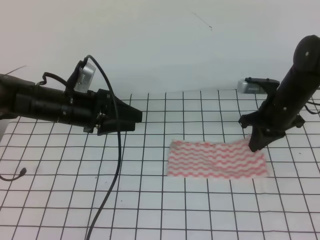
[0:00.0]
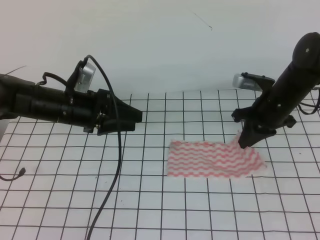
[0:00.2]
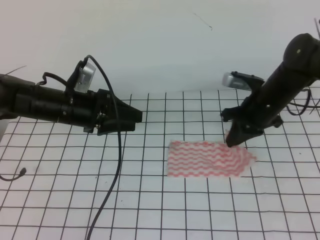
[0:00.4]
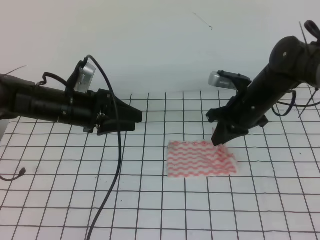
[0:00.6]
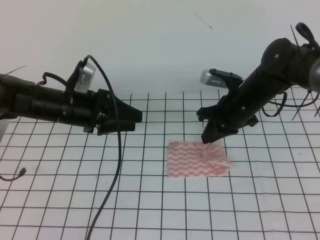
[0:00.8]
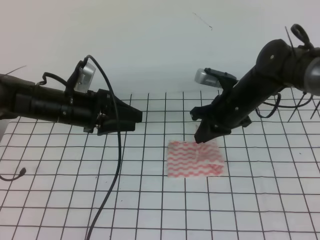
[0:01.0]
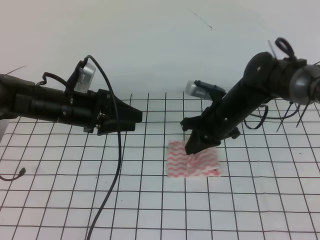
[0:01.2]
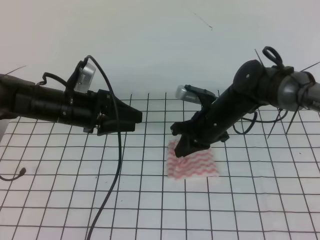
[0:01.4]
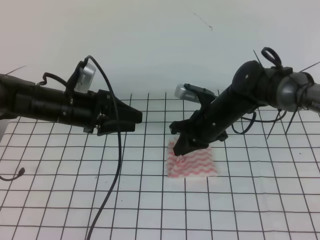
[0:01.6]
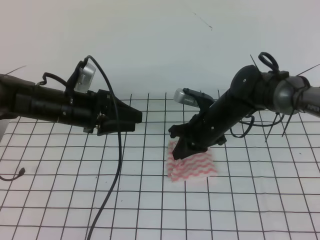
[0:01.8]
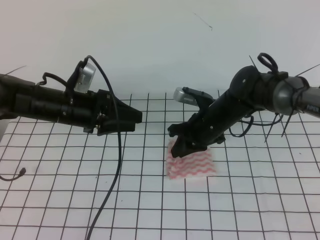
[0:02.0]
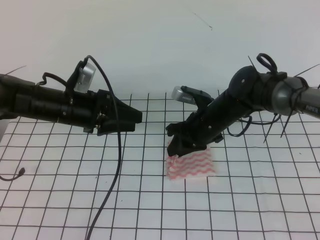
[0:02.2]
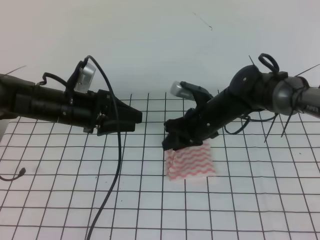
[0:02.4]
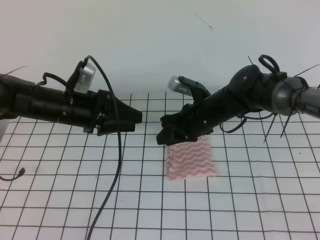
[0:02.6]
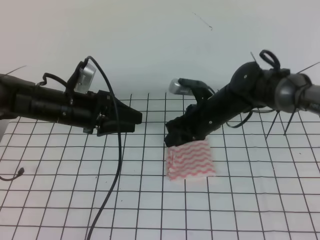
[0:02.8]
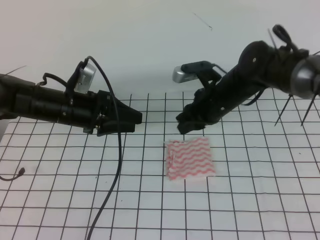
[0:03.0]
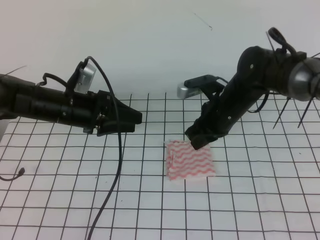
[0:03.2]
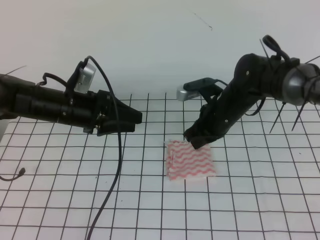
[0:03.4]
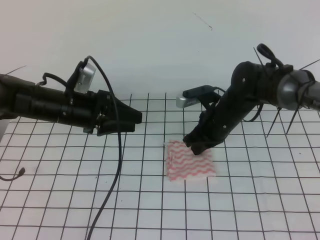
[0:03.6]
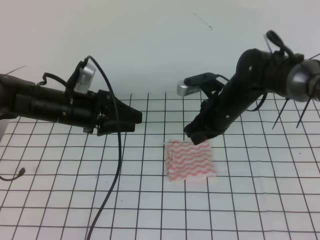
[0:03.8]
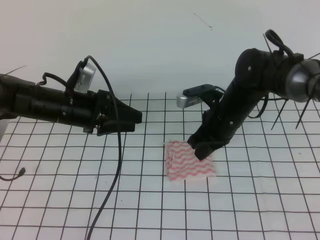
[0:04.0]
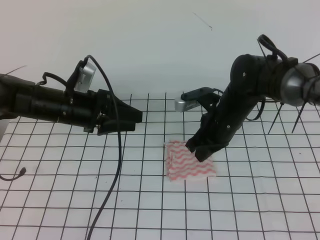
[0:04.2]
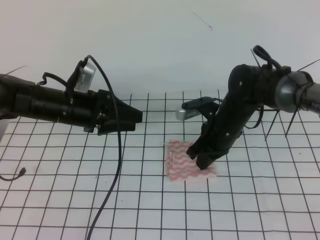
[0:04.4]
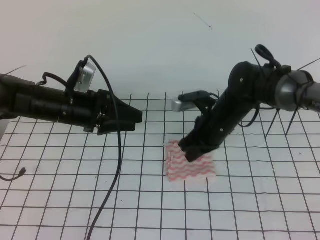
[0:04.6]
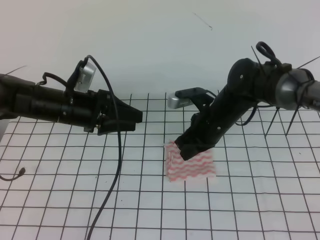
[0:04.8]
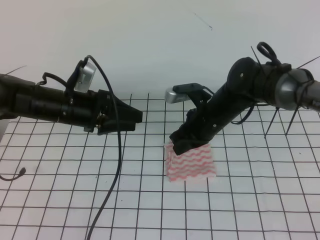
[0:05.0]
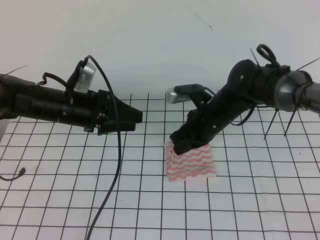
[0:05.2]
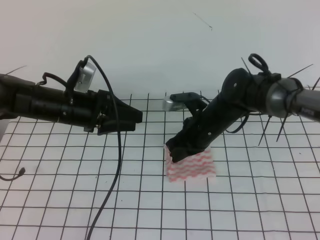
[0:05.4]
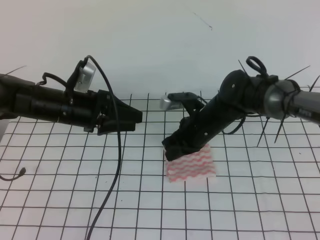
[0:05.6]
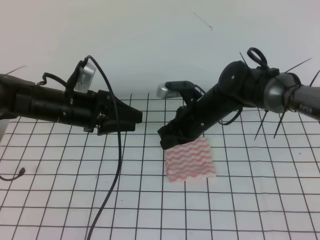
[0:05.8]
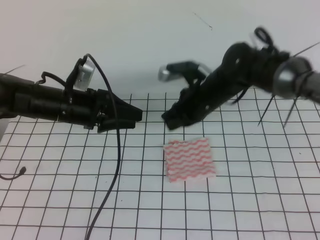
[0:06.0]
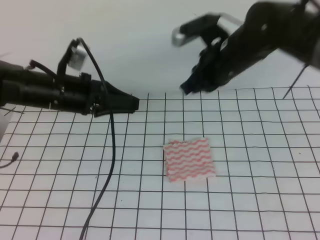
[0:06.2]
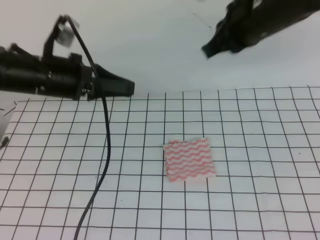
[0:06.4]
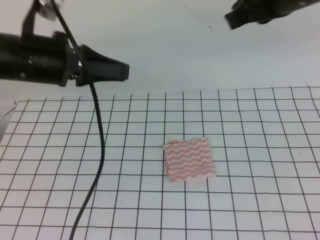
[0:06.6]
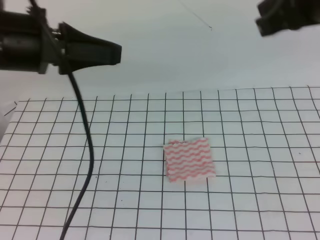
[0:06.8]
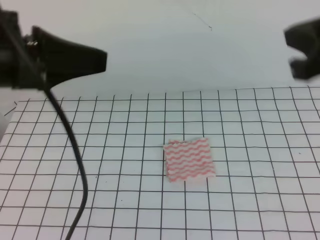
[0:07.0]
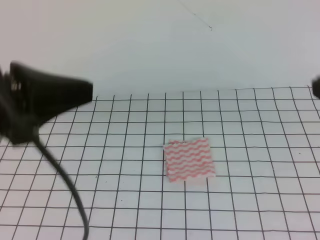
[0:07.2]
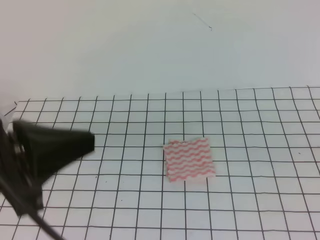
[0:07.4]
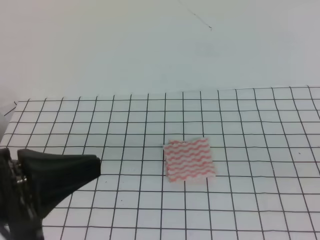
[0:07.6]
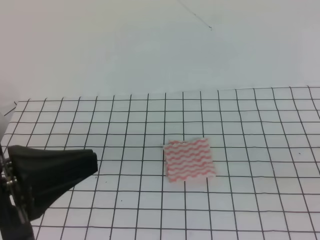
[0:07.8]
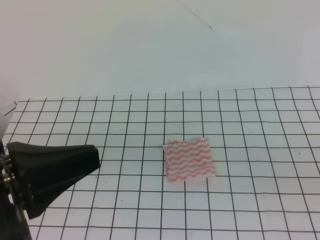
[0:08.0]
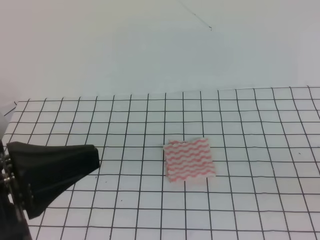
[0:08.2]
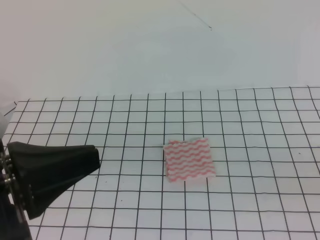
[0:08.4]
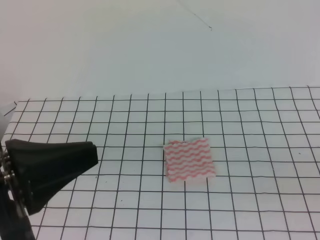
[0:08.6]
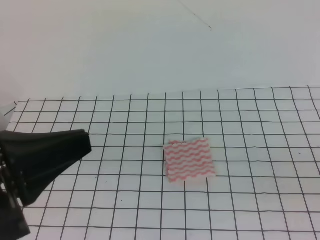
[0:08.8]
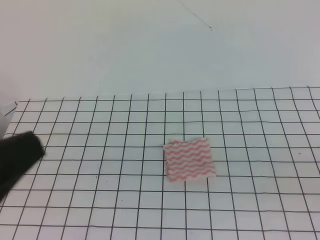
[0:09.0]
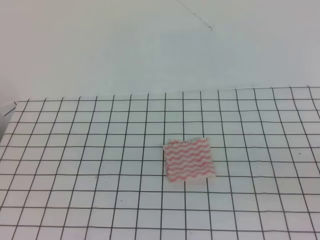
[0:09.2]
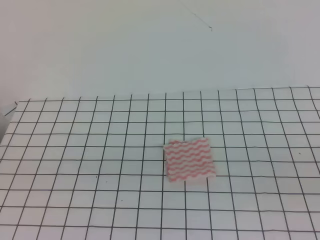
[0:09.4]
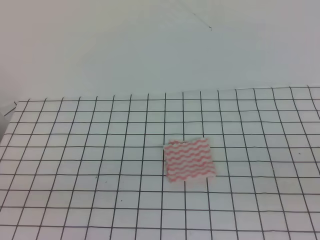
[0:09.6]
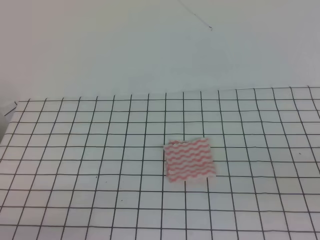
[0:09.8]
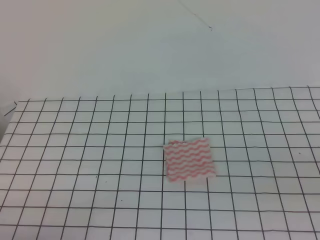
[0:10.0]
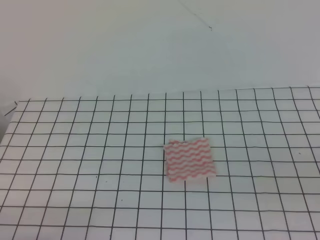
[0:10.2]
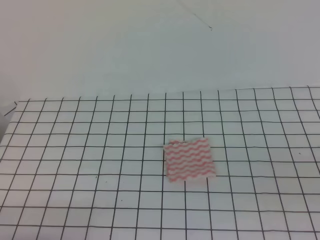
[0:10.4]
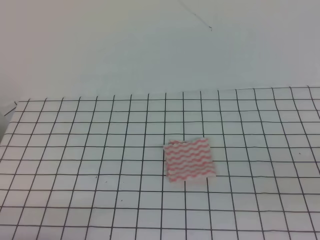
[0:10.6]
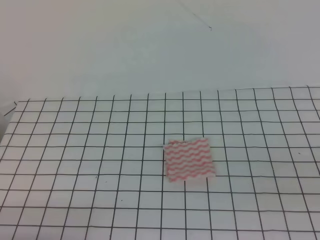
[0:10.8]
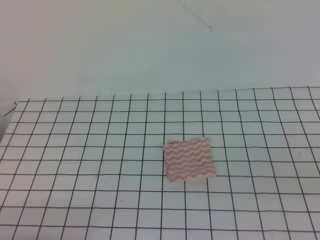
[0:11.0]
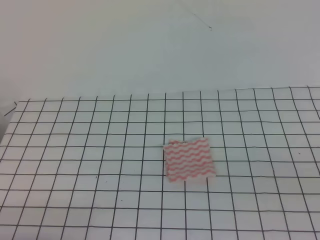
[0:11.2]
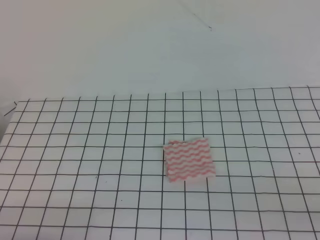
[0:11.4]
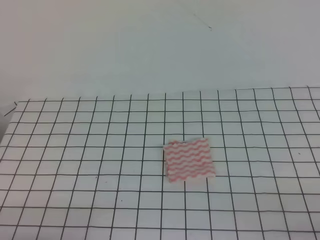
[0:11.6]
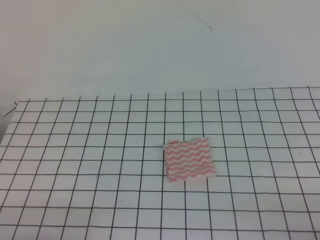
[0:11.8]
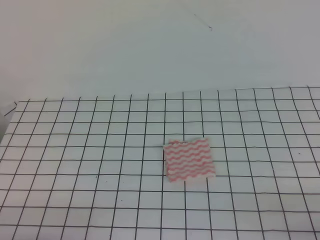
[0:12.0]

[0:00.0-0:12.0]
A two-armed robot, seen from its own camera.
0:00.0 to 0:01.6: The right gripper heads to the left, covering approximately 10 cm.
0:01.6 to 0:03.0: The right gripper opens.
0:03.0 to 0:04.4: The right gripper closes its fingers.
0:04.4 to 0:06.0: The right gripper shifts by roughly 5 cm.
0:06.0 to 0:07.6: The right gripper goes approximately 35 cm backward and to the right, while the left gripper travels backward and upward by roughly 30 cm, and closes up.
0:07.6 to 0:09.0: The left gripper heads backward, covering about 5 cm.
0:09.0 to 0:10.4: The left gripper goes about 20 cm downward.

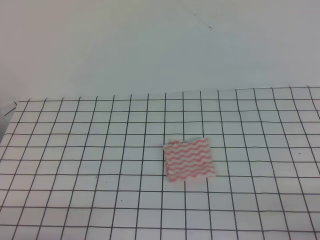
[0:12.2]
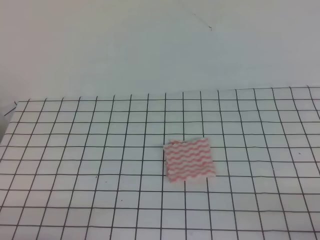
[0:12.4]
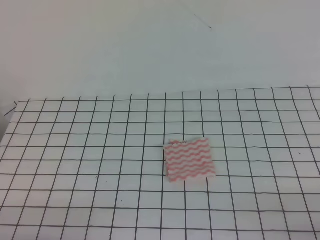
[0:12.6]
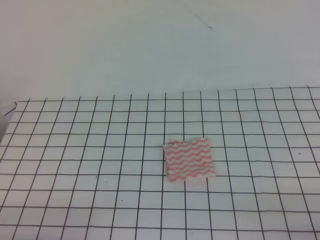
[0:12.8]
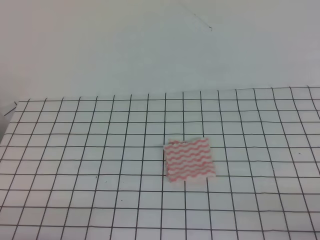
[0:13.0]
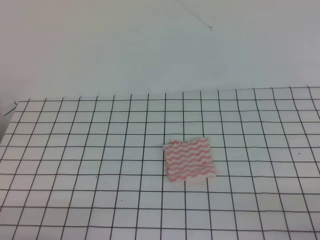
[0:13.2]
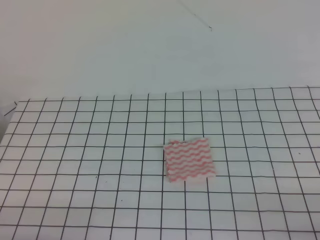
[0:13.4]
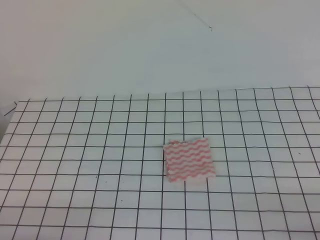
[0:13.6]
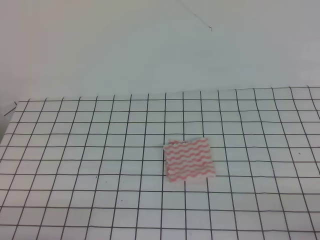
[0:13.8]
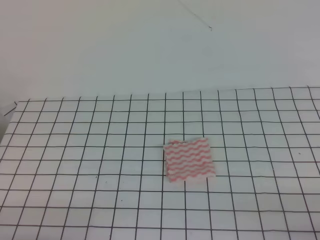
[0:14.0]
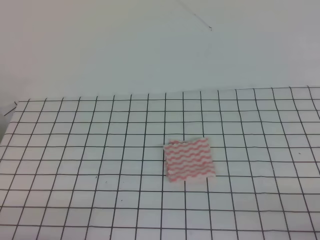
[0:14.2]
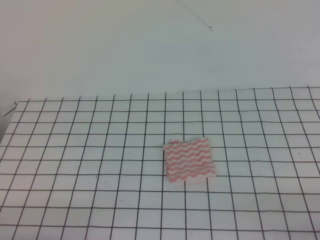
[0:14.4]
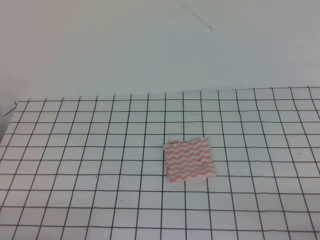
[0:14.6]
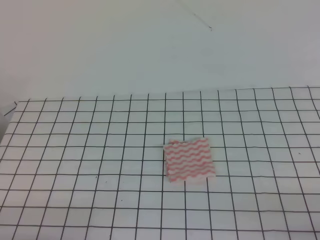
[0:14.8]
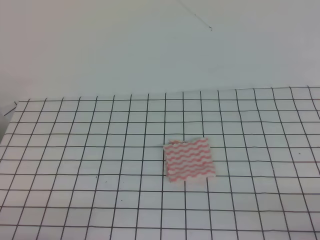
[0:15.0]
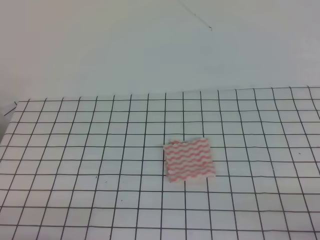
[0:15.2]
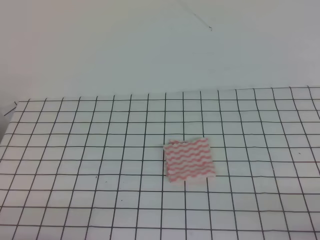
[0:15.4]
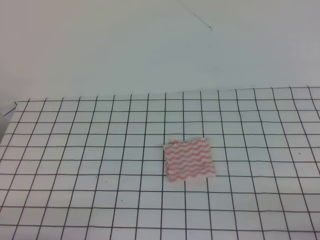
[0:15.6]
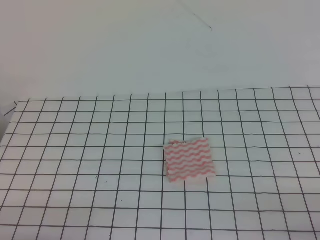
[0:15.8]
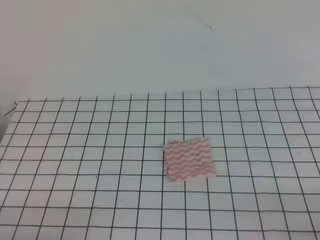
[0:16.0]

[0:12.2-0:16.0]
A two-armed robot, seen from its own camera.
0:12.2 to 0:16.0: Both grippers stay put.
